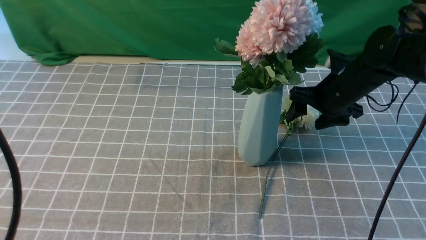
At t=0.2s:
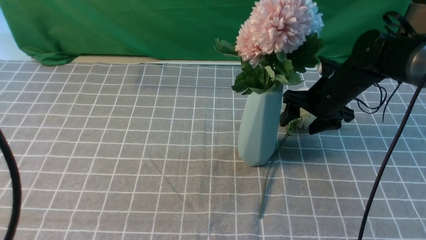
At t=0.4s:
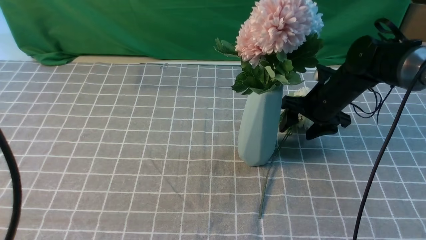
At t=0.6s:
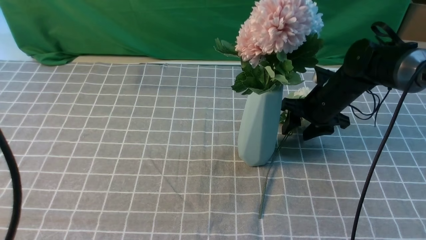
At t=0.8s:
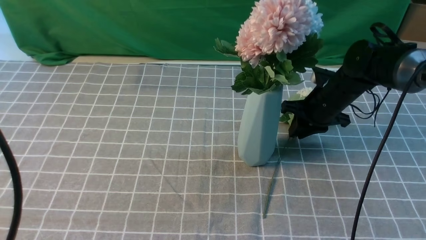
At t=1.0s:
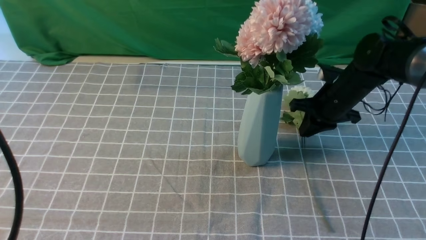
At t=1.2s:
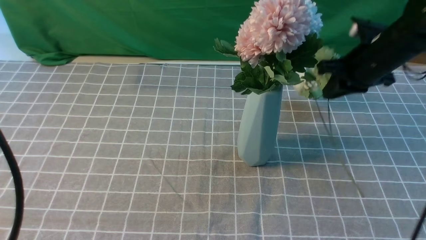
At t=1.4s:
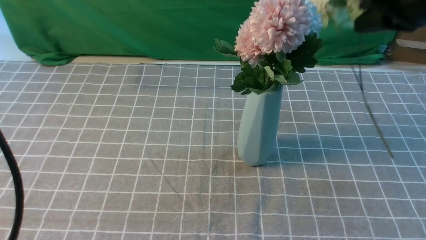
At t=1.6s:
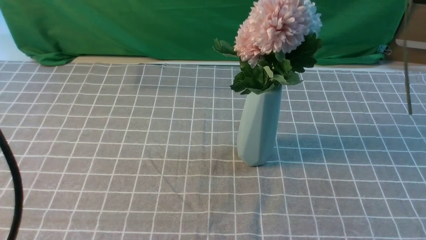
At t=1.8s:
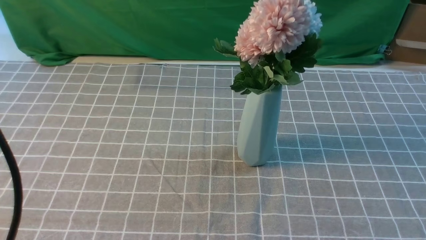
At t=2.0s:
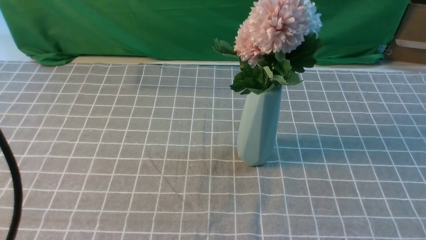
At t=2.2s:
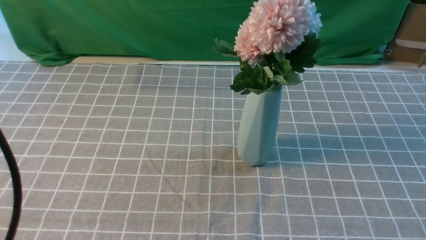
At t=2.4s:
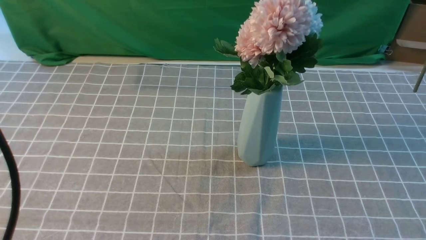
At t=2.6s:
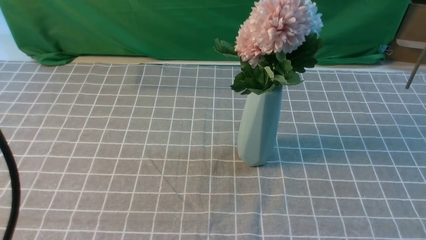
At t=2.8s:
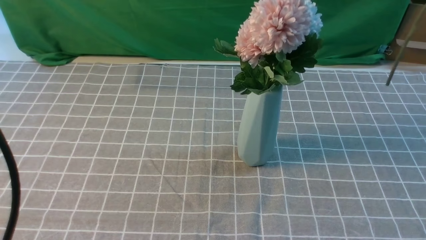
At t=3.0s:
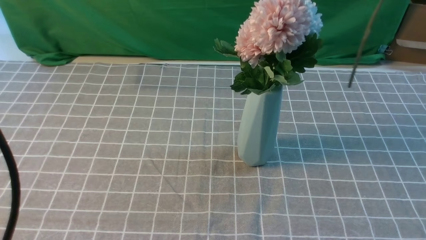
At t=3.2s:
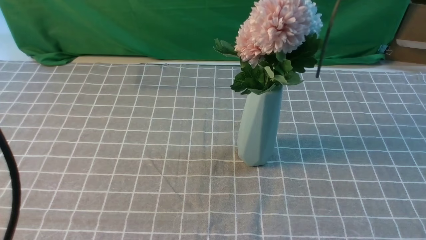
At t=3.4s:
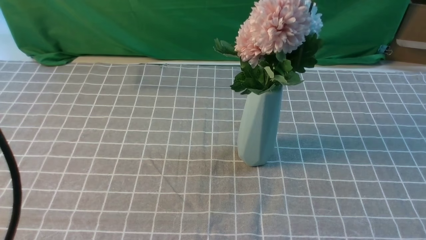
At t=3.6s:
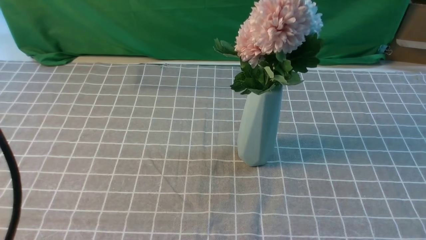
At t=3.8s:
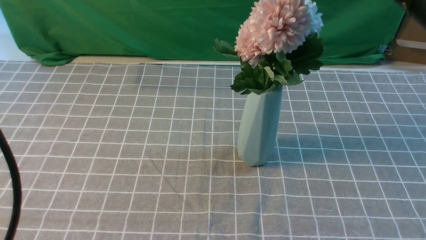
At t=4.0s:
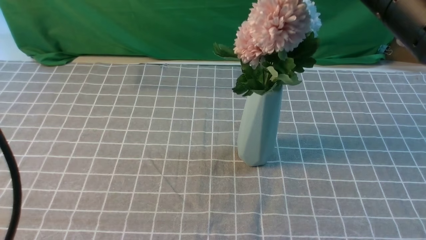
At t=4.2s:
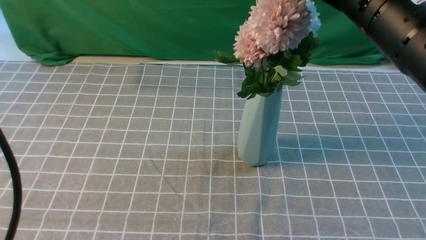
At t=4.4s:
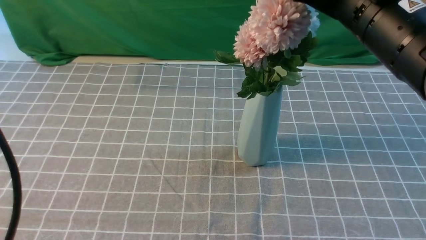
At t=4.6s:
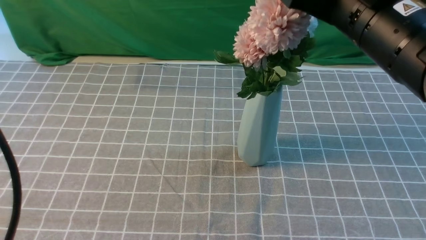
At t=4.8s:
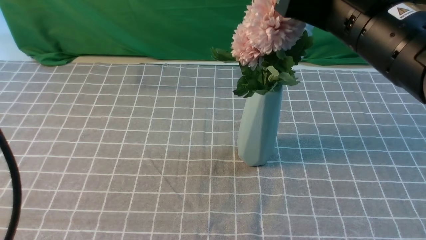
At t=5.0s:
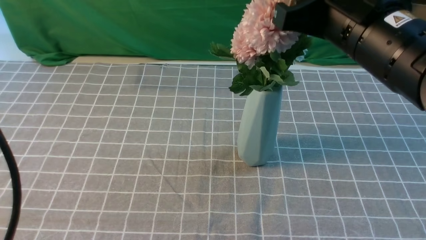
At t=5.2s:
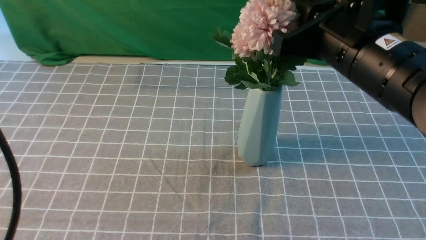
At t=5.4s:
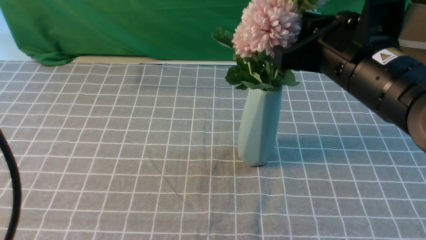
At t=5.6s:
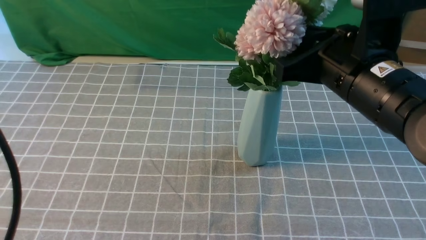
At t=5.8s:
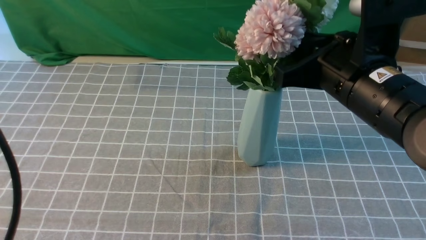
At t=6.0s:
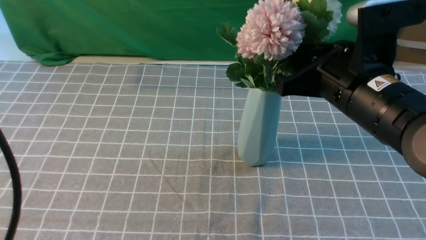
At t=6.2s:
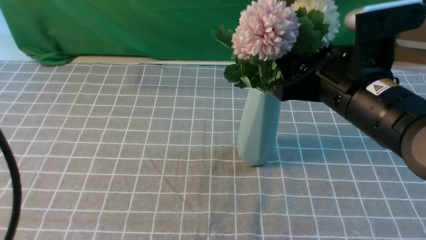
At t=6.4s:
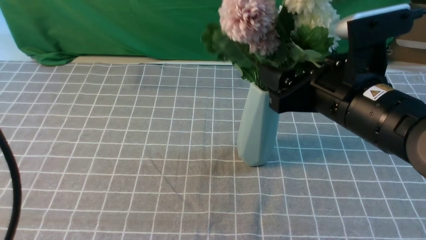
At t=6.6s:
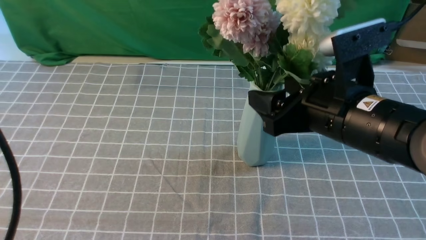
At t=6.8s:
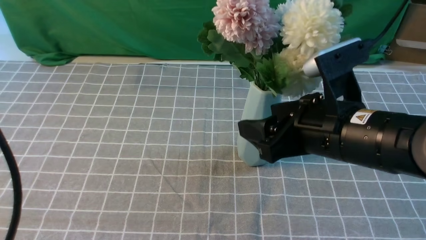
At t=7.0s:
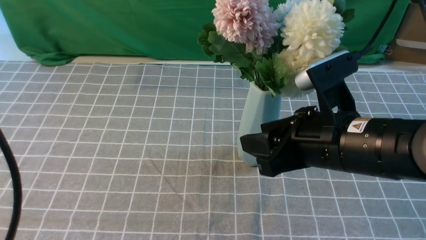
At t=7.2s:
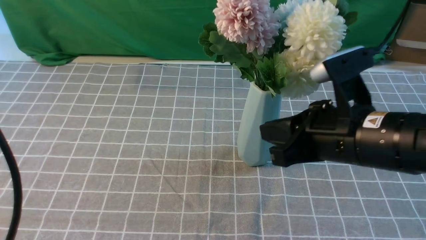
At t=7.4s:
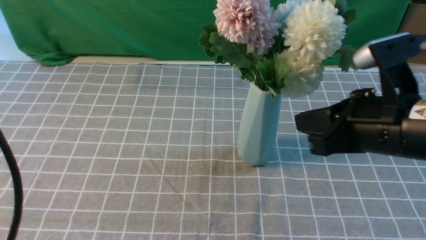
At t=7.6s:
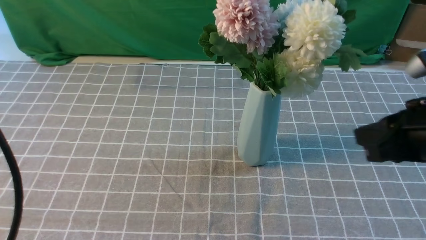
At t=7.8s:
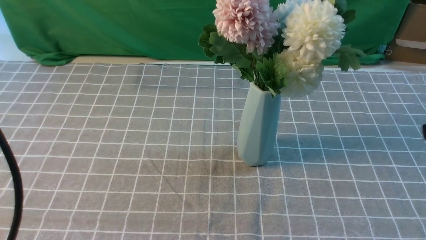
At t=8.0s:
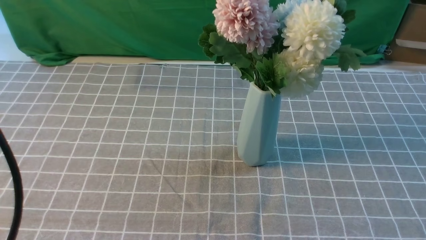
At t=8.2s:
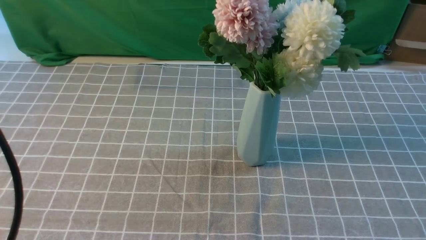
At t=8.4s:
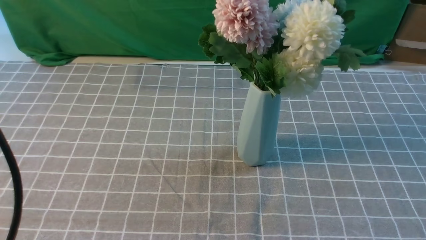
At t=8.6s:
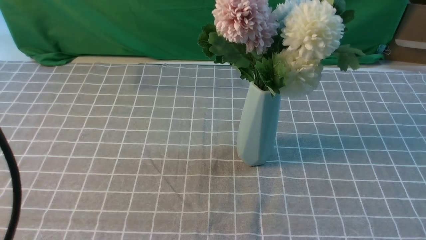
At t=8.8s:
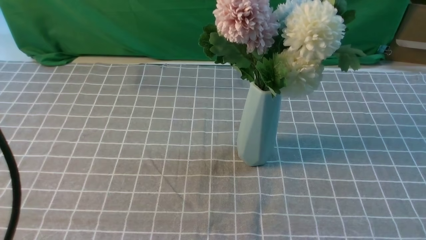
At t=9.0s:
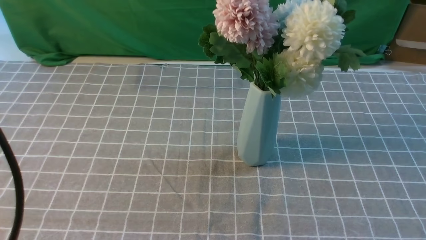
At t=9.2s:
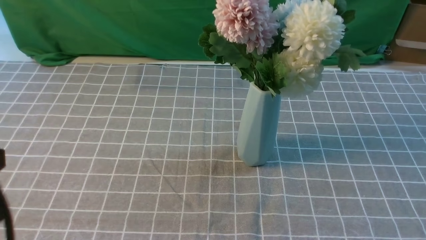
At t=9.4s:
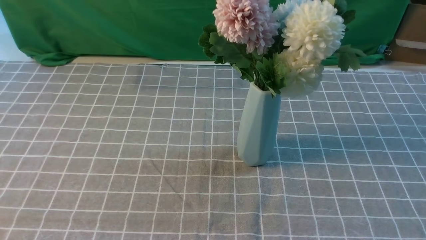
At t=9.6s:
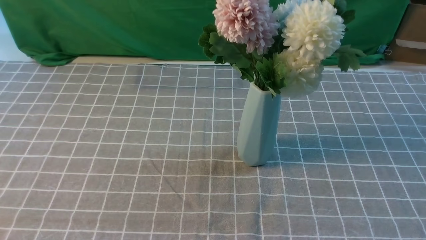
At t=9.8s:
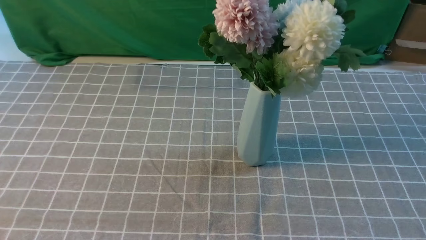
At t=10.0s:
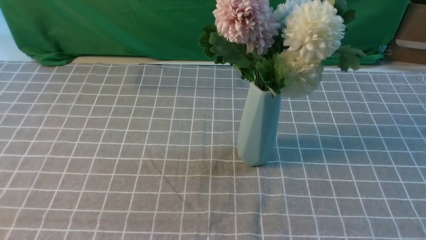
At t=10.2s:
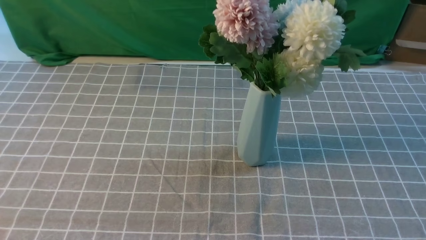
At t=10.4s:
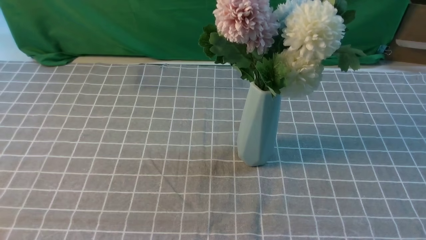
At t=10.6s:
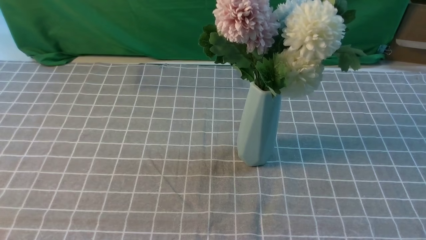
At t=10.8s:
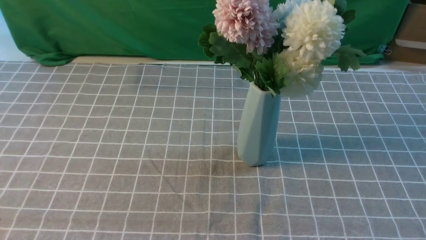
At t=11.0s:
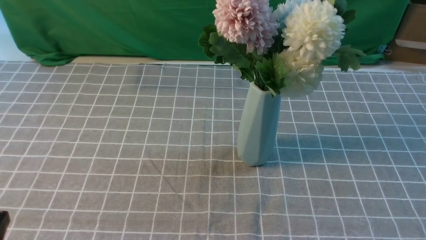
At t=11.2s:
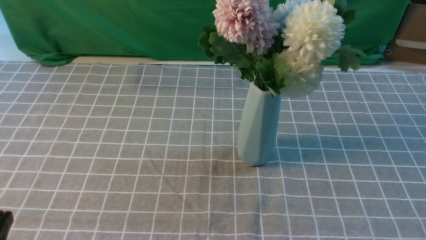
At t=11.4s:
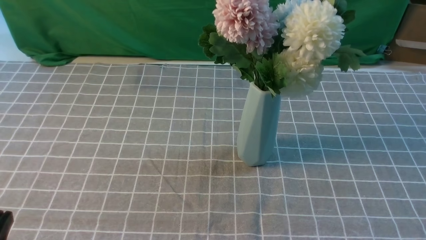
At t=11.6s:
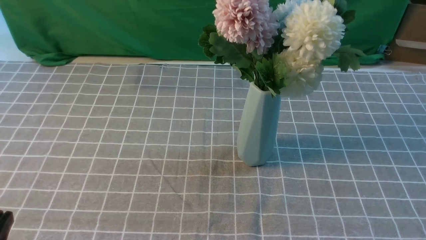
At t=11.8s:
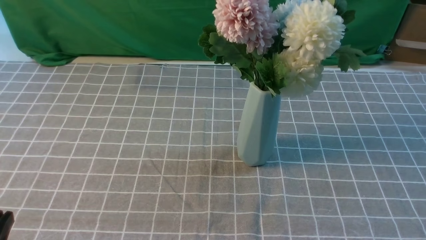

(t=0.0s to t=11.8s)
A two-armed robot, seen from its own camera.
Task of the whole recording: insert the flowers into the vase on the table with the grey tablecloth.
Step, t=1.2s - t=7.0s: use the right arm to insert the flowers into the vase.
t=0.0s - t=1.4s: The right gripper travels upward by about 20 cm, and closes up.
t=1.4s - t=3.0s: The right gripper is displaced backward by approximately 15 cm.
t=3.0s - t=4.4s: The right gripper heads forward, to the left and downward, covering about 15 cm.
t=4.4s - t=6.0s: The right gripper heads downward, covering roughly 10 cm.
t=6.0s - t=7.4s: The right gripper changes place by approximately 5 cm, and opens, then closes once more.
t=7.4s - t=8.8s: The right gripper heads backward and to the right, covering approximately 25 cm.
t=8.8s - t=10.4s: The left gripper heads downward and backward, covering some 15 cm.

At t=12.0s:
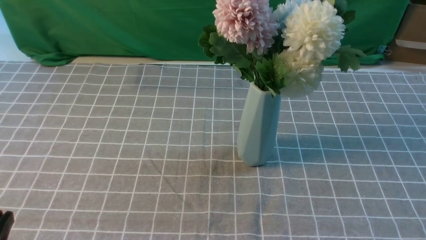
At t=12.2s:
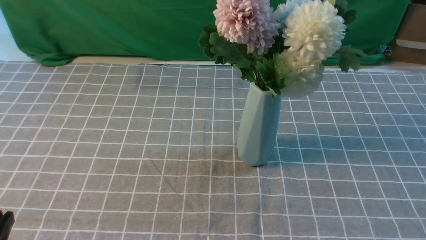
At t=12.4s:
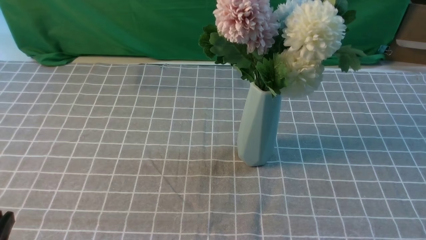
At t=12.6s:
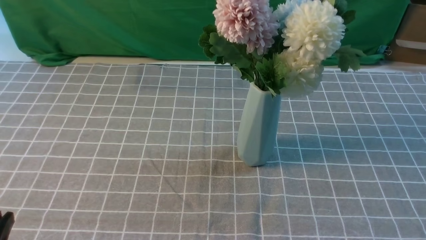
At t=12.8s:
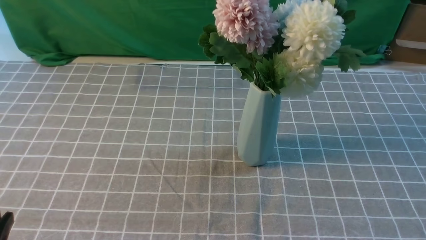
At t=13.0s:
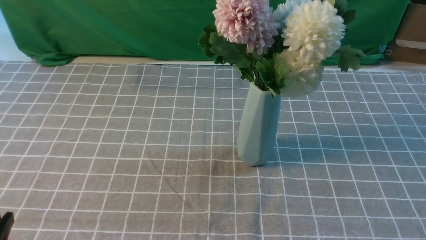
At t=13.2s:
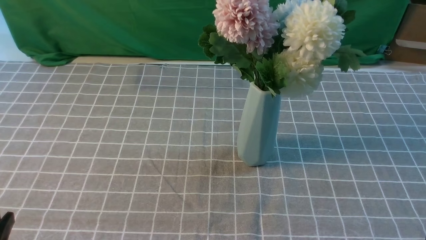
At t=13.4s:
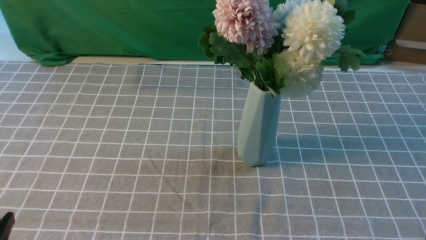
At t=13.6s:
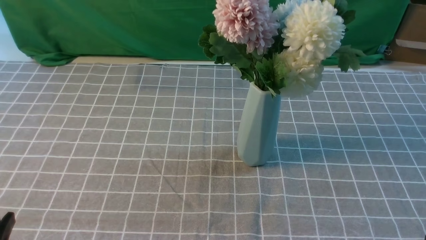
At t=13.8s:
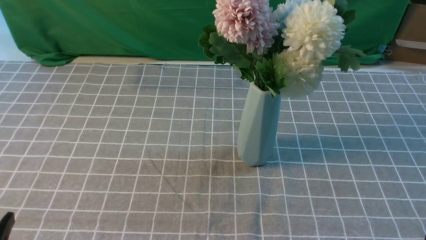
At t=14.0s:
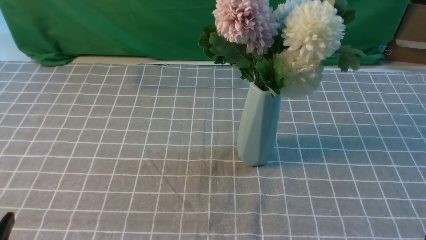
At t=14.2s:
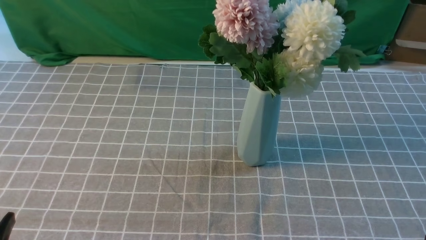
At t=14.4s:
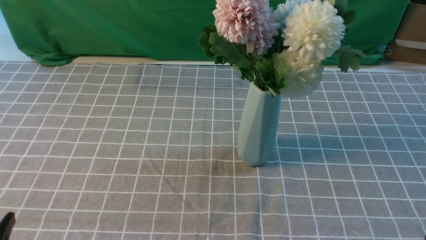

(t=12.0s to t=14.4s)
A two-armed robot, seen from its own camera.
Task of the whole recording: insert the flowers into the vase on the table with the grey tablecloth.
t=13.2s - t=14.4s: Both grippers stay put.
